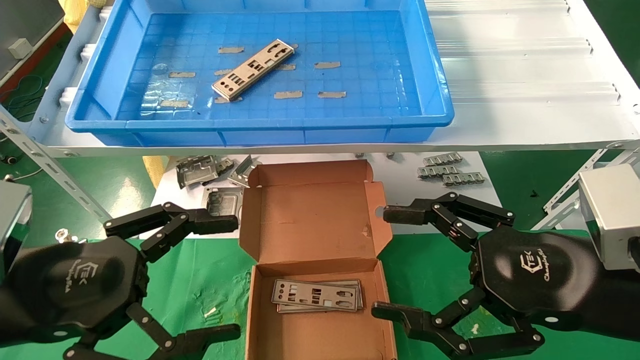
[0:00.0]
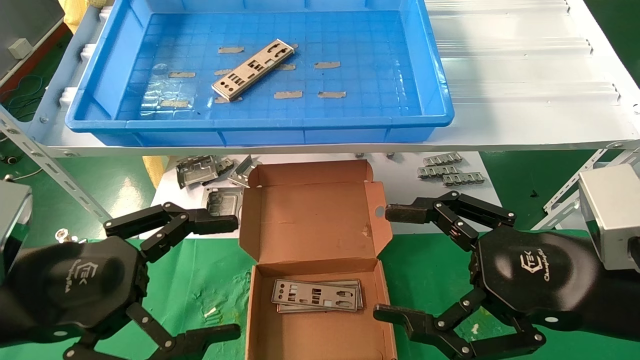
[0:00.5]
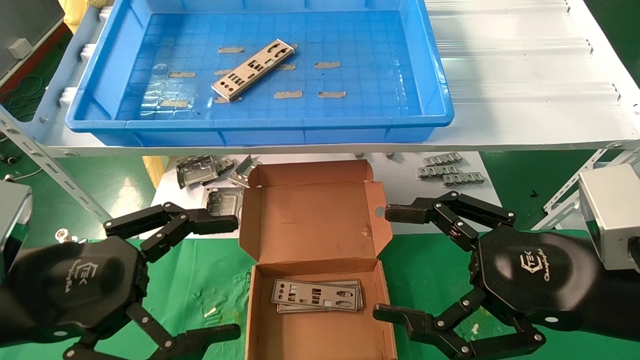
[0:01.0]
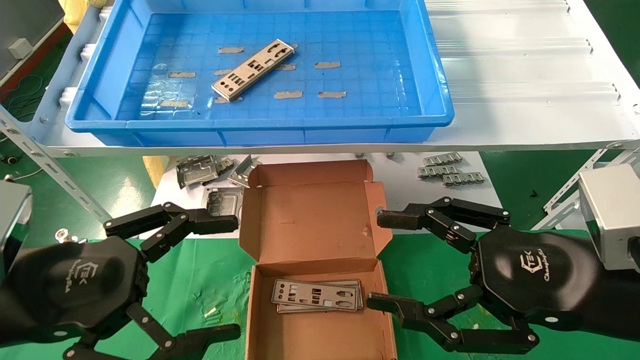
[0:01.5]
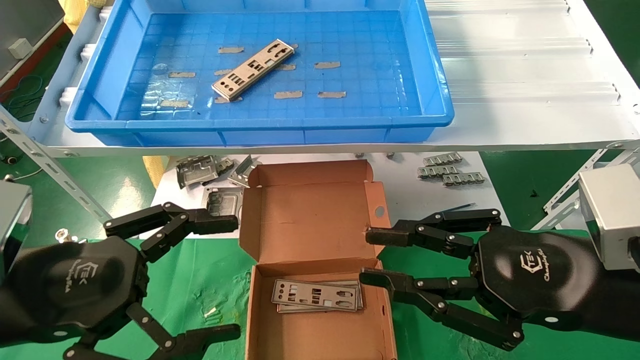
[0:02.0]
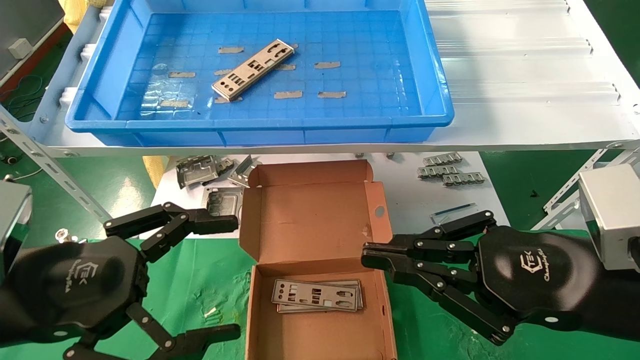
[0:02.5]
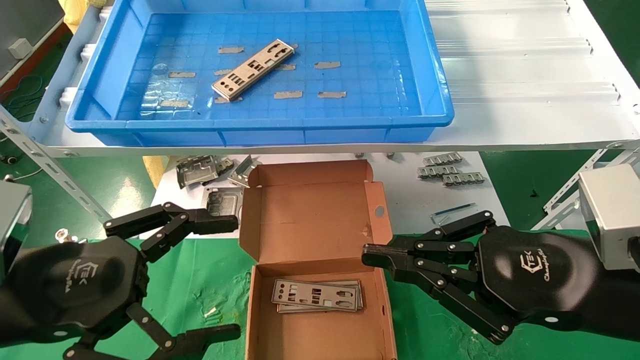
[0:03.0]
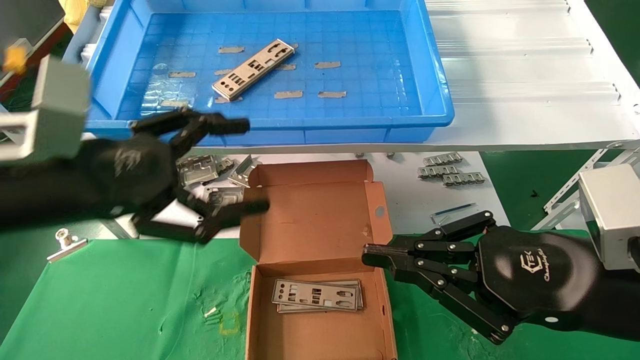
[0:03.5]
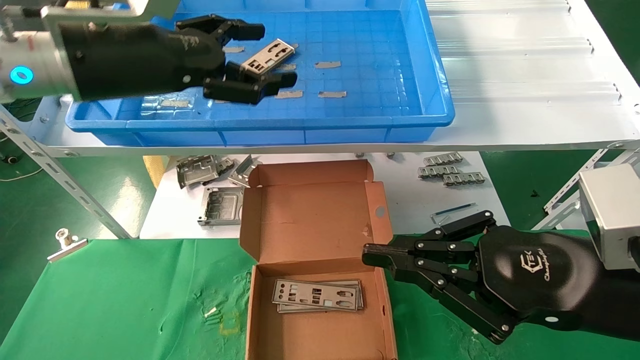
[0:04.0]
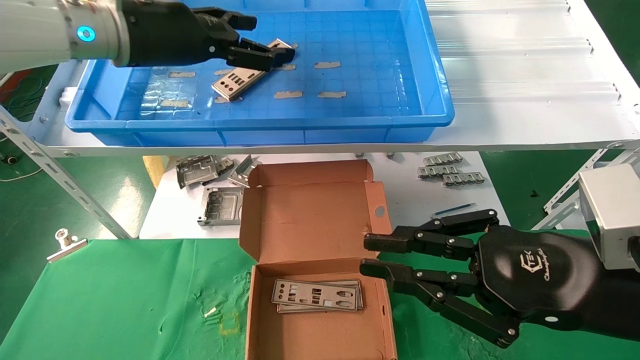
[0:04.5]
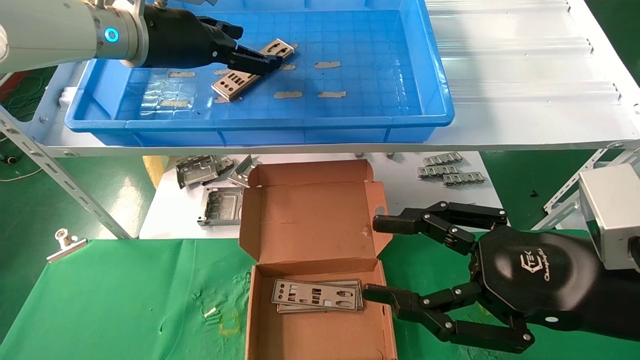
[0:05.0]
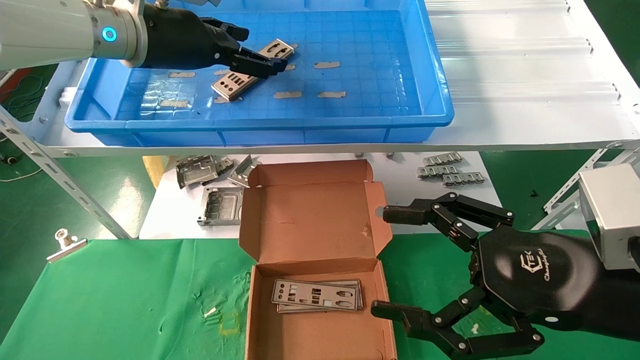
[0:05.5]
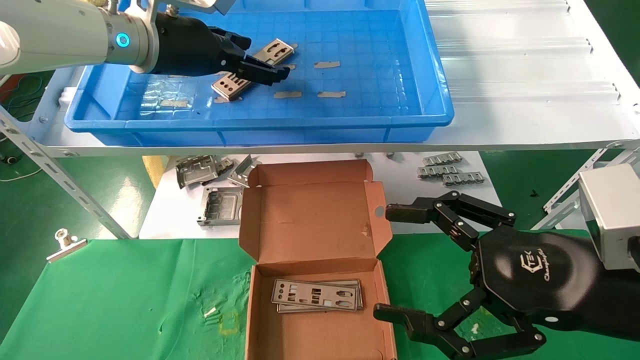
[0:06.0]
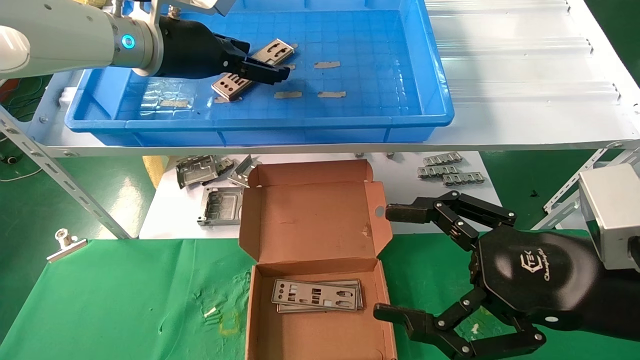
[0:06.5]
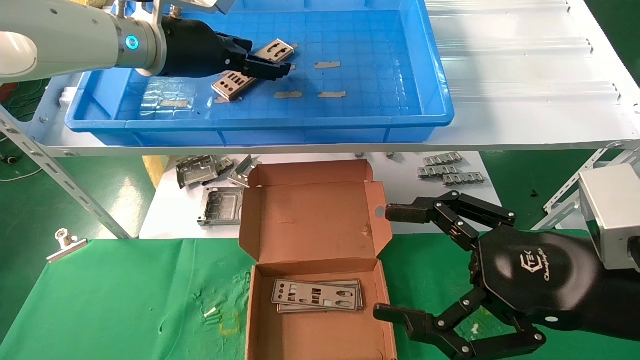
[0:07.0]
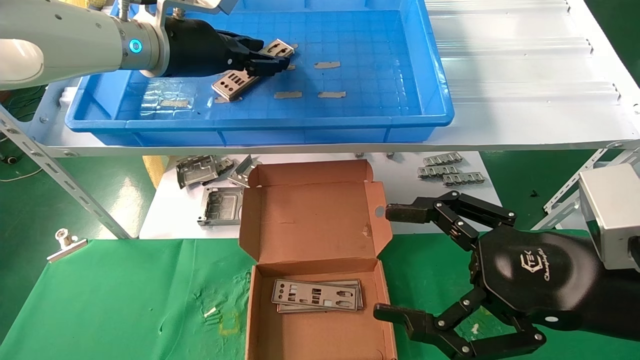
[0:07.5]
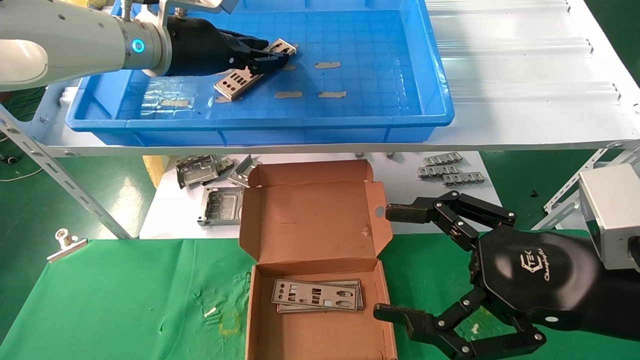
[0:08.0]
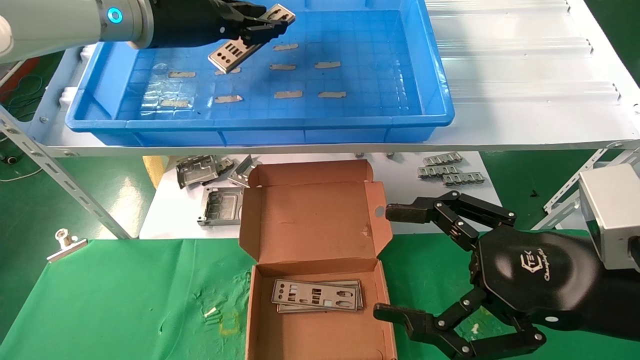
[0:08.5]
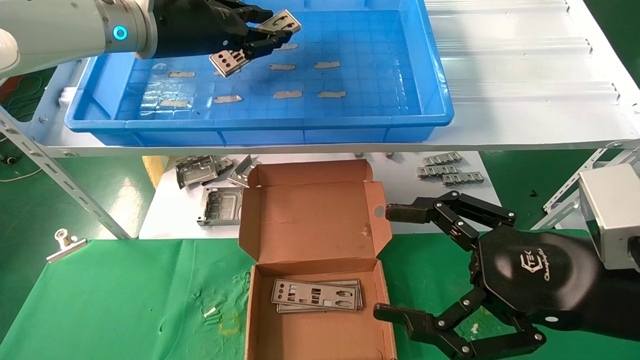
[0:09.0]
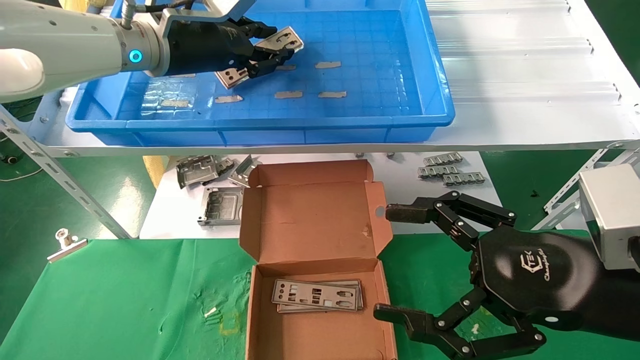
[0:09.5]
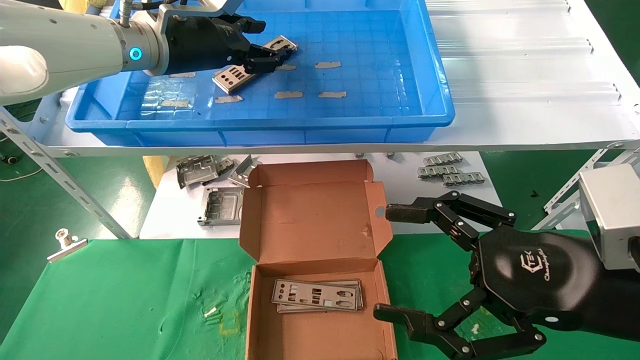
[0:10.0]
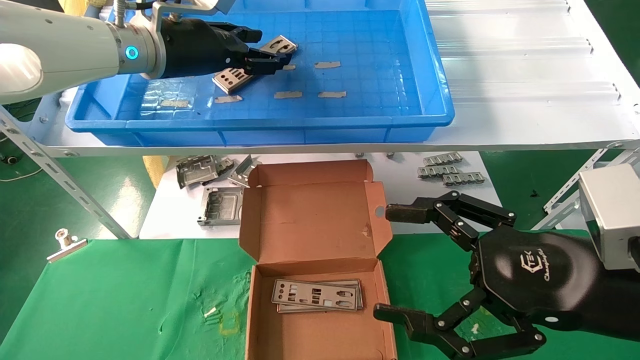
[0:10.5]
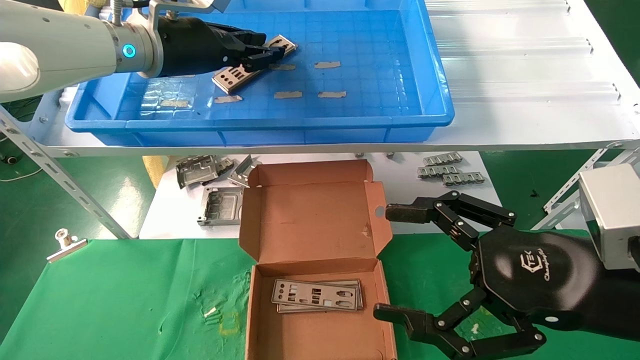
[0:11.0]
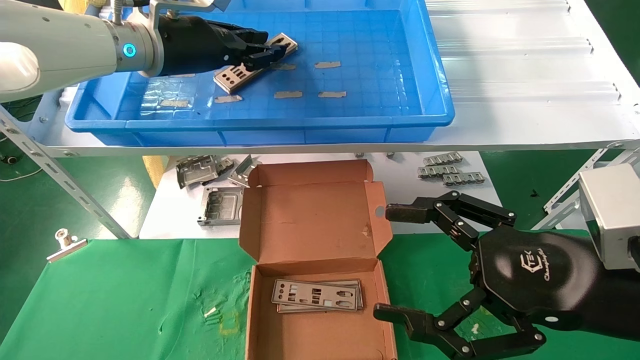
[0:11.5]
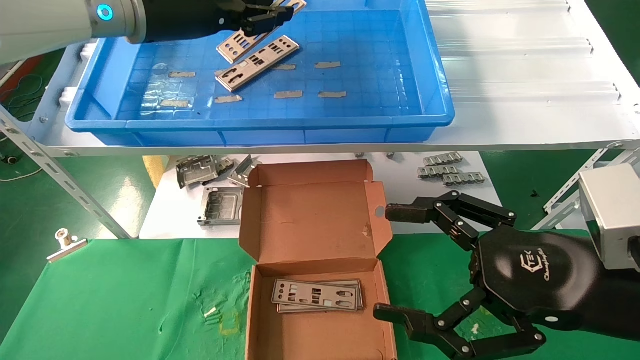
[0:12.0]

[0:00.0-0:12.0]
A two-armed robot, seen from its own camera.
Task of the whole recording: pick up the parts on the tray and put them in the cardboard box.
Step, 0:03.5 to 0:11.0: Pick up the IO bracket from the container box.
0:00.0 to 0:02.0: The right gripper closes.
0:02.0 to 0:04.0: The right gripper closes. Meanwhile the left gripper is displaced upward and forward by some 20 cm.
0:04.0 to 0:06.0: The right gripper opens. The left gripper goes roughly 10 cm forward.
0:06.0 to 0:08.0: The left gripper closes its fingers.
0:08.0 to 0:10.0: The grippers stay close to where they were, moving slightly.
0:10.0 to 0:12.0: The left gripper changes place by about 5 cm.

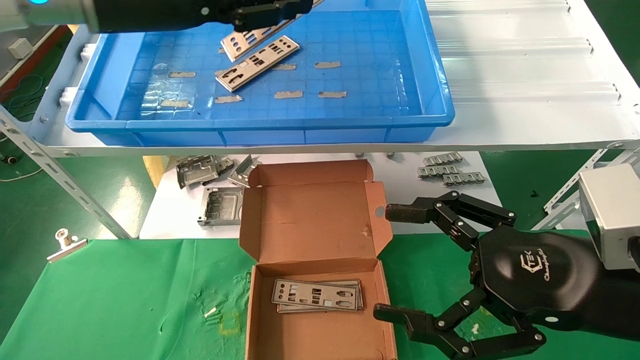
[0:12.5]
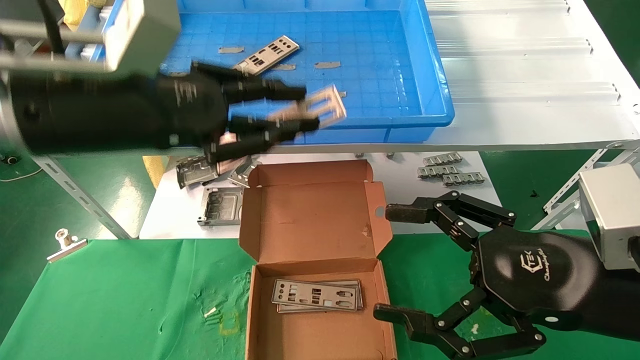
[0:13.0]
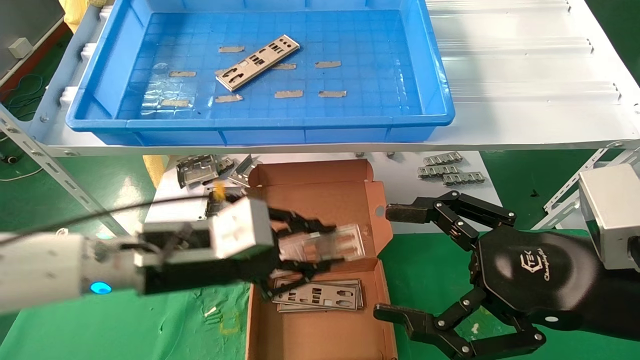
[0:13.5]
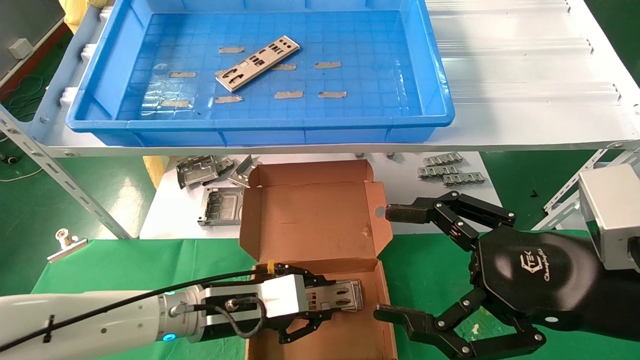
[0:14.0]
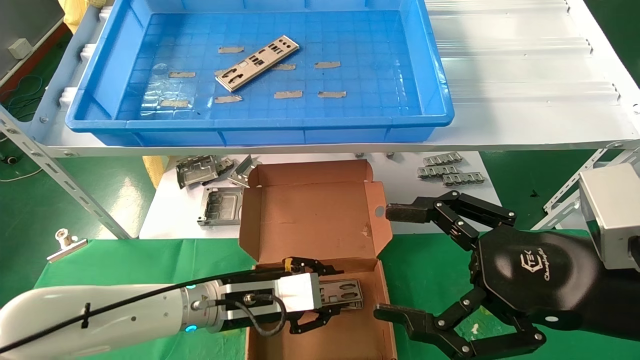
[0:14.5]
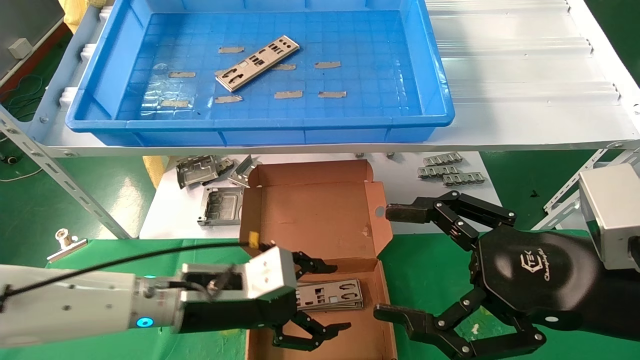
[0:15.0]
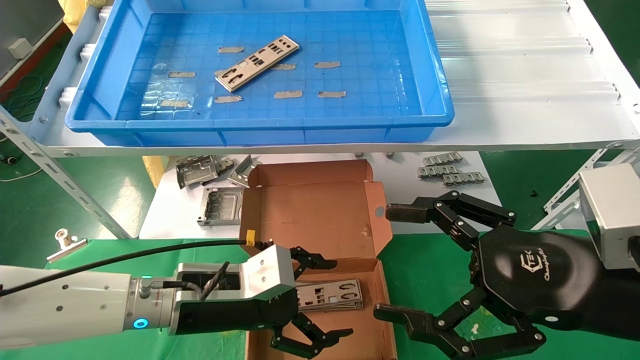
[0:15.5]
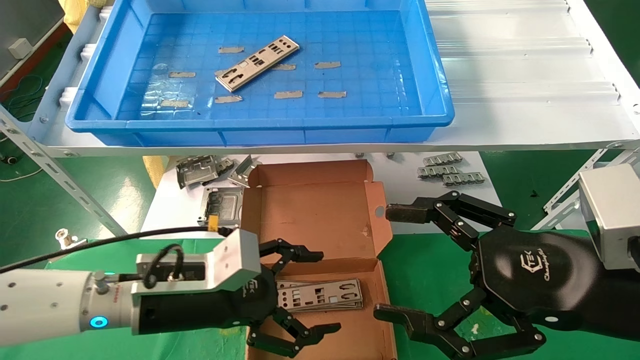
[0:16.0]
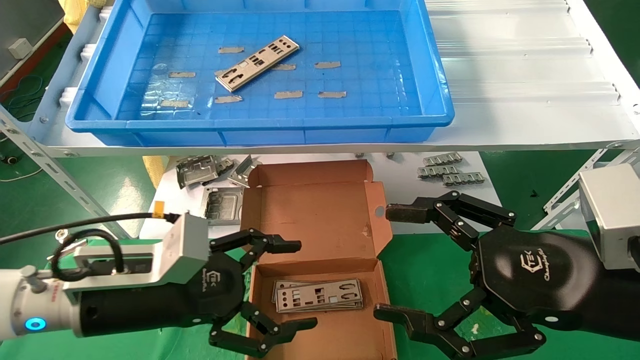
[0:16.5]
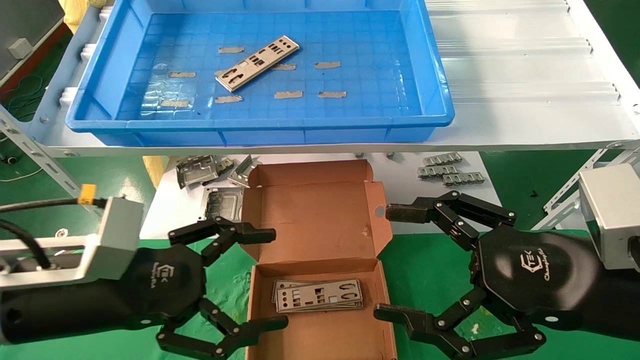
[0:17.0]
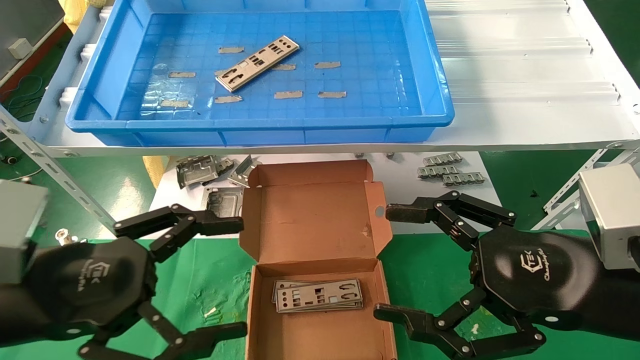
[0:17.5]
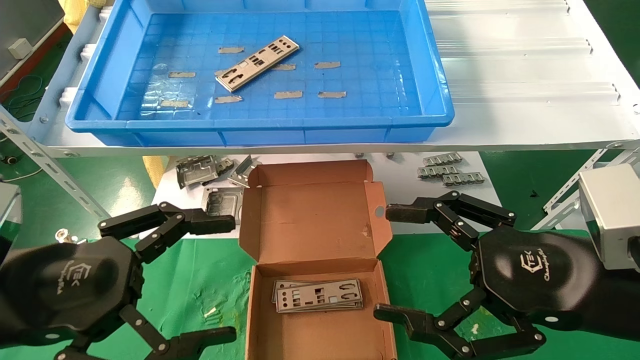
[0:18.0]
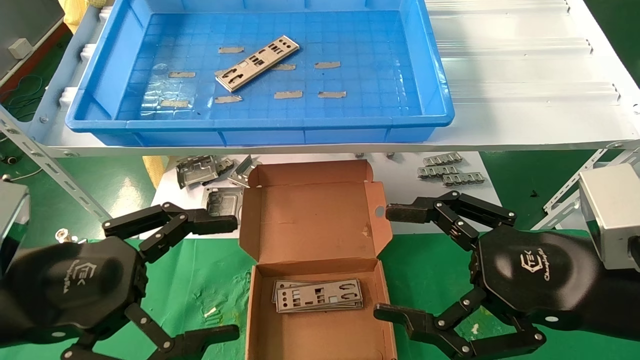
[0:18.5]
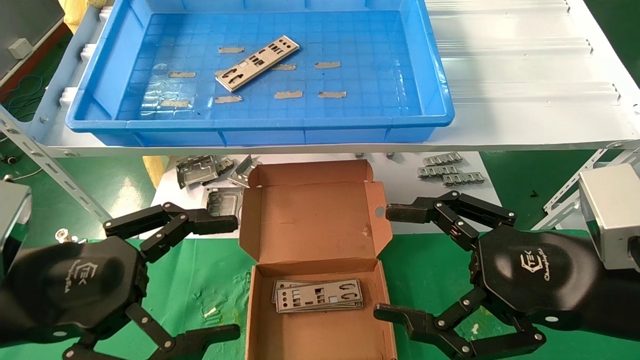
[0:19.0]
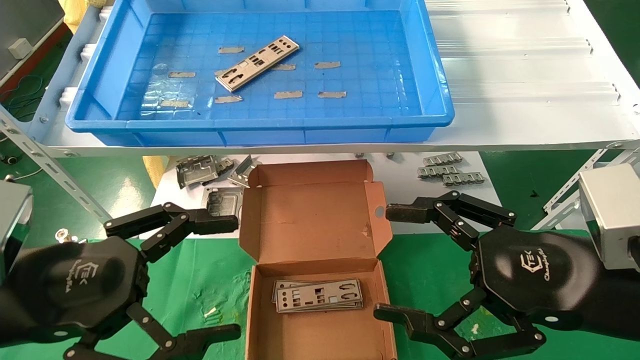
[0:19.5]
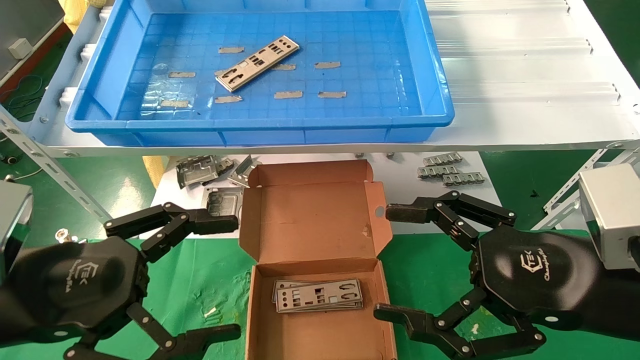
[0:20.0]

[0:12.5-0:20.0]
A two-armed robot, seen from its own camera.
Task of the whole recording: pick up the parts on the tray and put them in the cardboard box.
Step, 0:12.5 to 0:14.5: Place the IO bracket into the ingredient slot.
0:12.5 to 0:14.5: The left gripper goes roughly 35 cm downward.
0:14.5 to 0:16.5: The left gripper heads backward, to the left and upward, covering some 15 cm, and opens.
0:16.5 to 0:18.0: The left gripper shifts some 10 cm backward, to the left and upward.
0:18.0 to 0:20.0: The two grippers keep their place.
